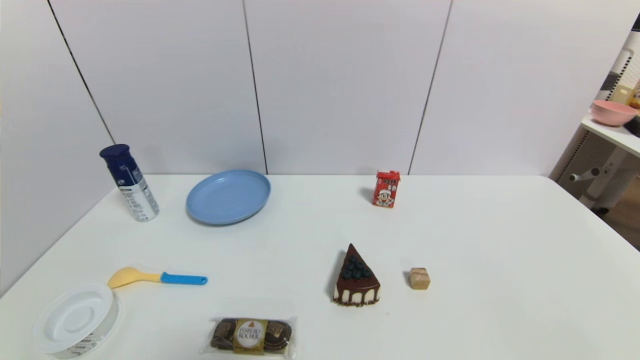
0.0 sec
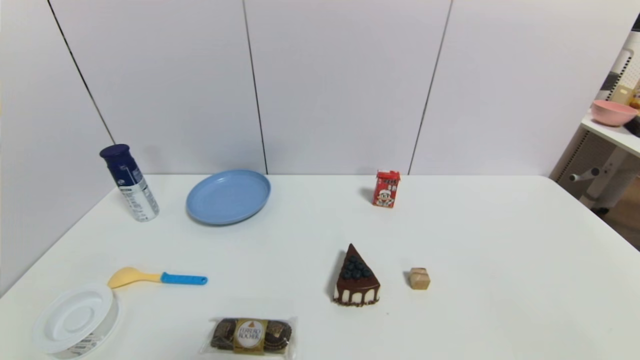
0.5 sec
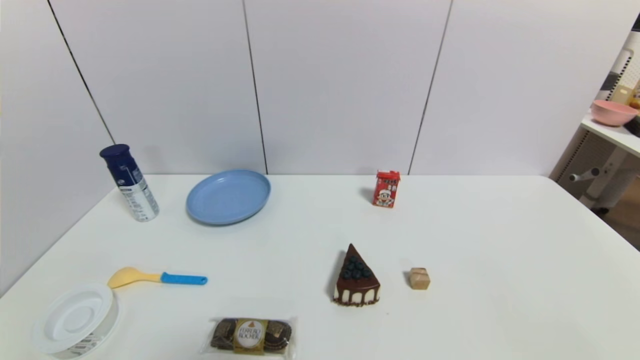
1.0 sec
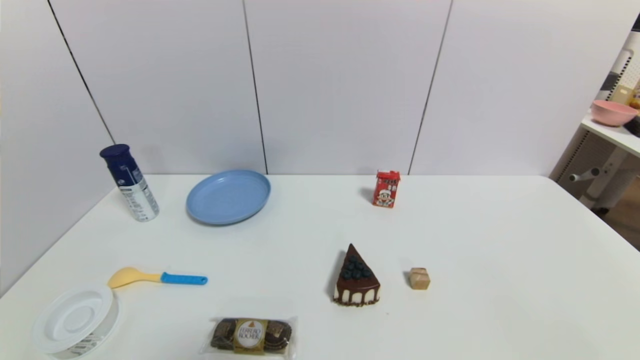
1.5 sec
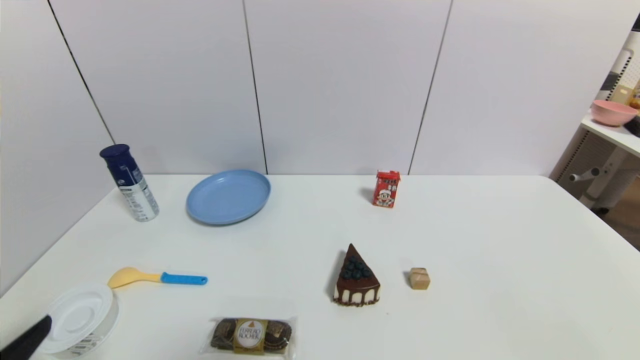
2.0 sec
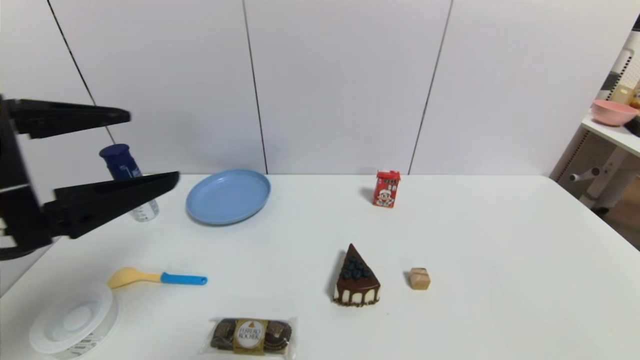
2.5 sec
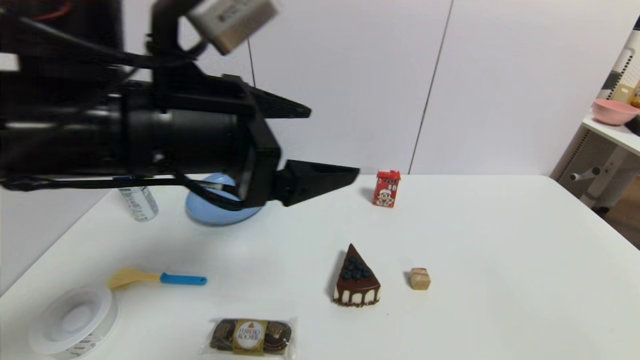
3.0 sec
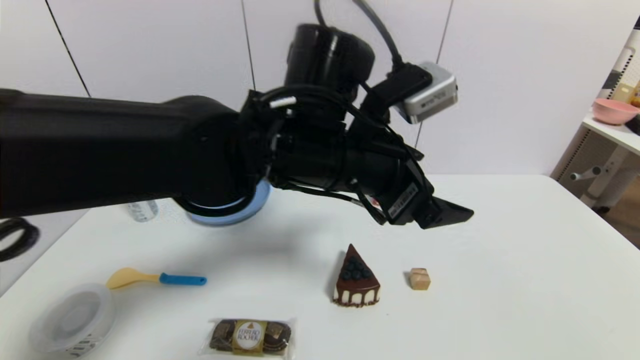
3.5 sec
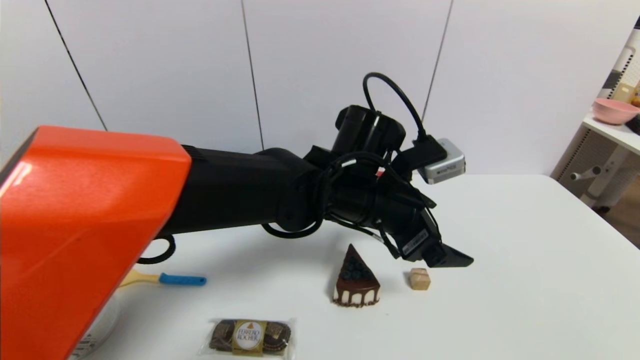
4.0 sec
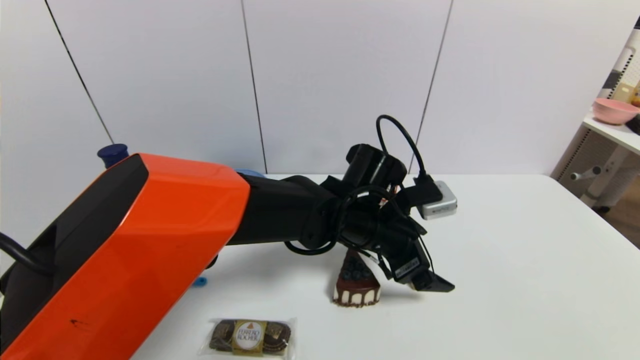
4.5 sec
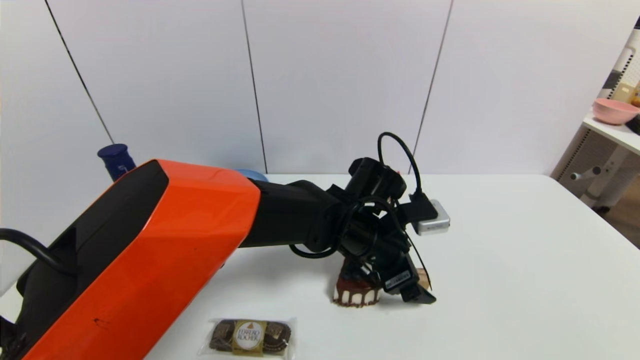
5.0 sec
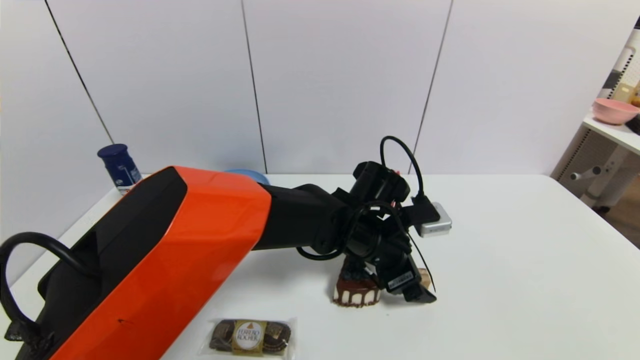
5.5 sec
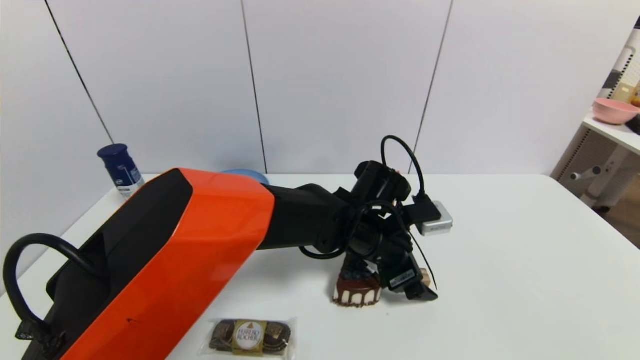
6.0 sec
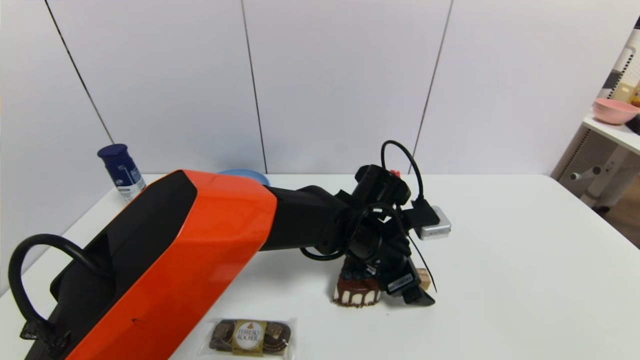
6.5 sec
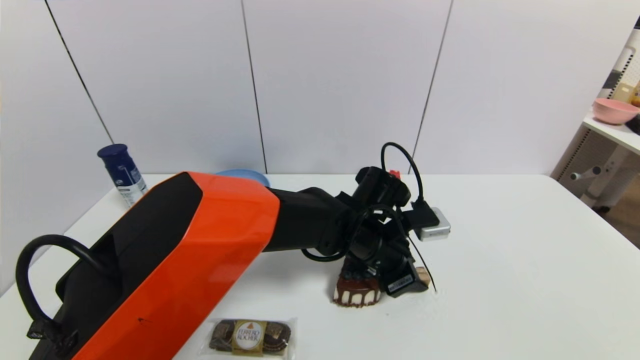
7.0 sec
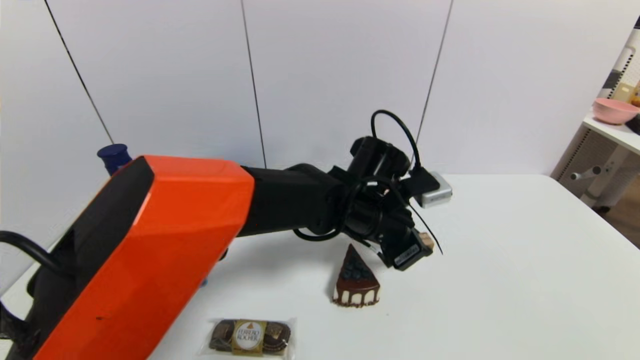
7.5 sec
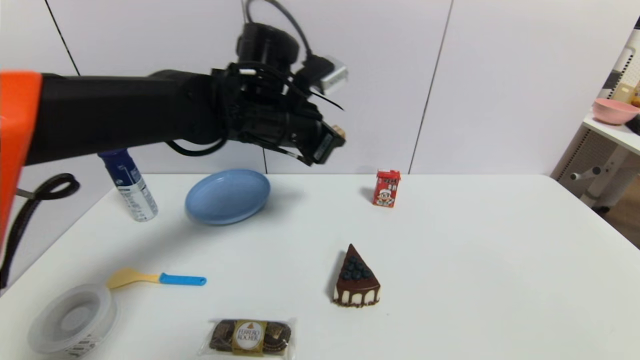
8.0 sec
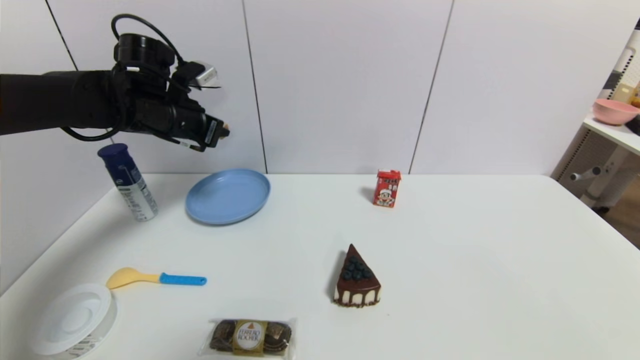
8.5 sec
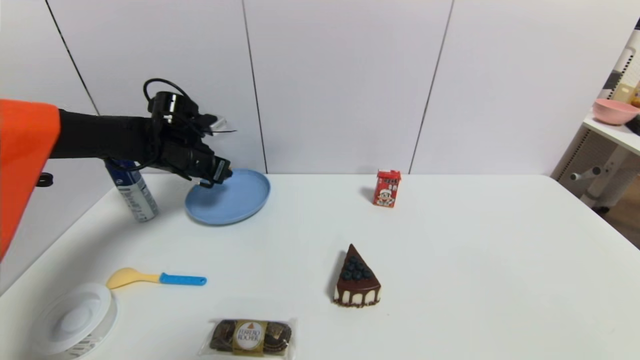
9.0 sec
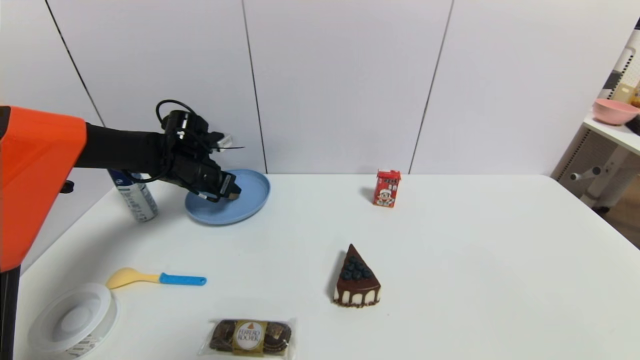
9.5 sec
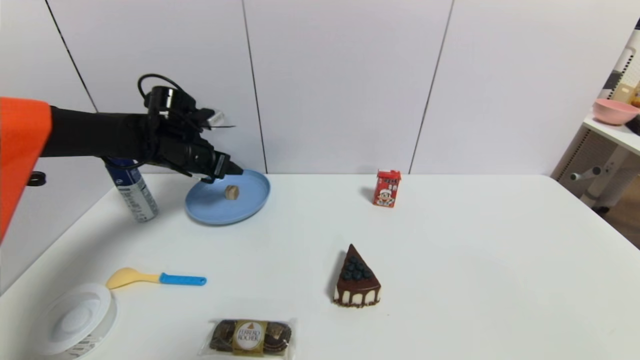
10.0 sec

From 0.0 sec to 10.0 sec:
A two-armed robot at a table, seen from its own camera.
Task of the whole recording: use a gripper to pick the target object and place on the blue plate.
Step, from 0.0 sec to 7.0 sec: Grasp the square wooden block with the left gripper.
Step, from 7.5 sec to 9.5 sec: Place the square wooden block on the blue plate with the left gripper.
From 0.0 sec to 2.0 sec: The left gripper is displaced upward by roughly 10 cm.
From 2.0 sec to 4.0 sec: The left gripper is displaced to the right and forward by approximately 40 cm.
From 4.0 sec to 6.0 sec: The left gripper travels downward by approximately 10 cm.
From 6.0 sec to 8.0 sec: The left gripper goes some 20 cm upward and to the left, and closes.
From 8.0 sec to 10.0 sec: The left gripper moves to the left, downward and forward, about 20 cm, and opens.

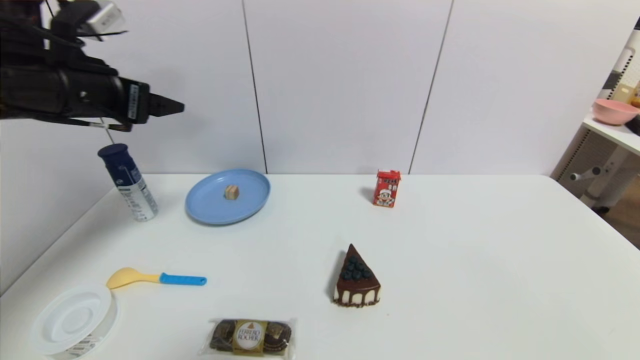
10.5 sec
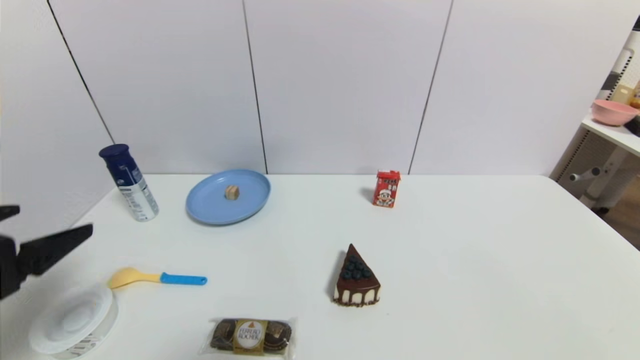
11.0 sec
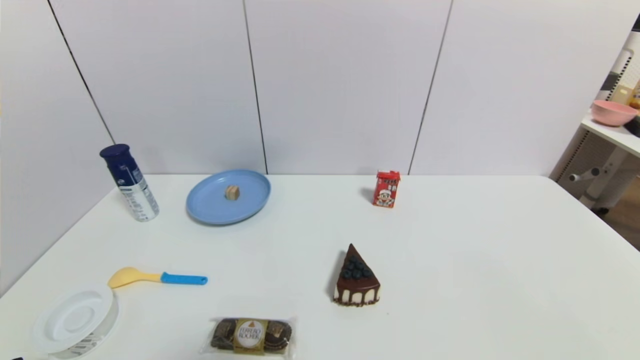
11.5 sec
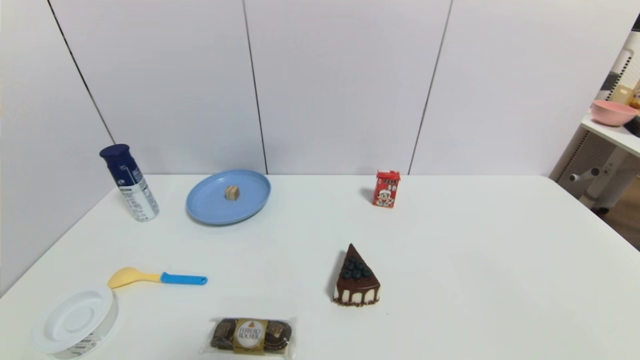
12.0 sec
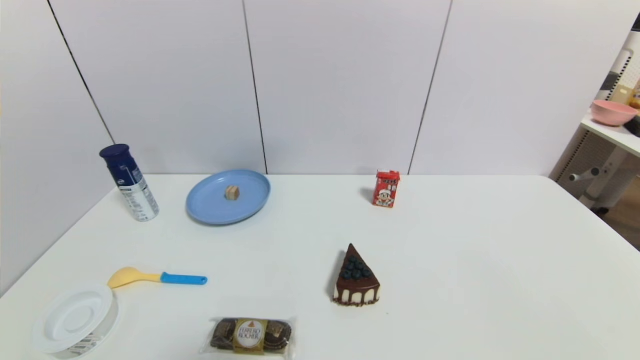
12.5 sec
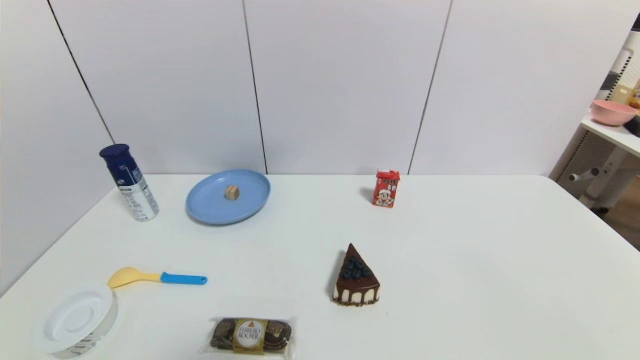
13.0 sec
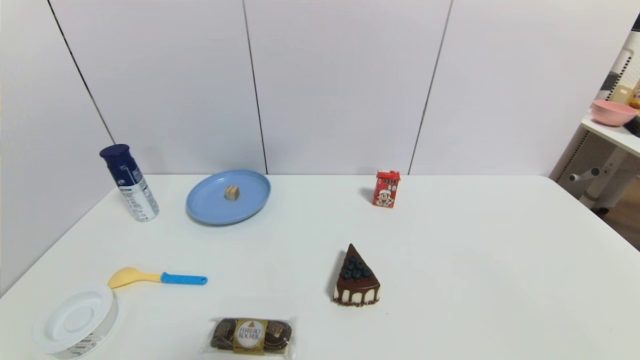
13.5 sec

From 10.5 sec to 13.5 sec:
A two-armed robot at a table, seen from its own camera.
Task of the whole recording: use a gripper to pick the target object and place on the blue plate.
From 10.5 sec to 12.0 sec: The left gripper heads backward and downward, covering about 40 cm.

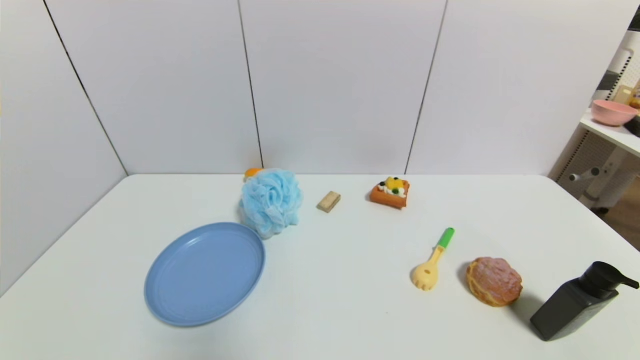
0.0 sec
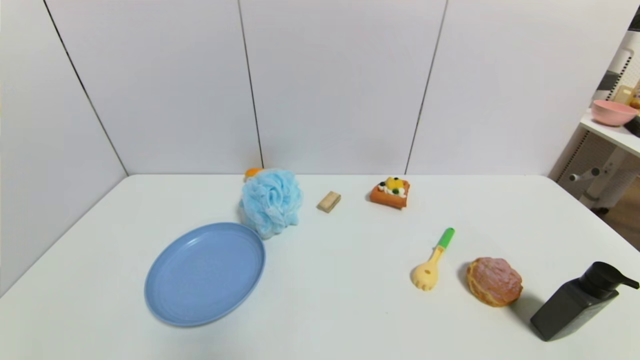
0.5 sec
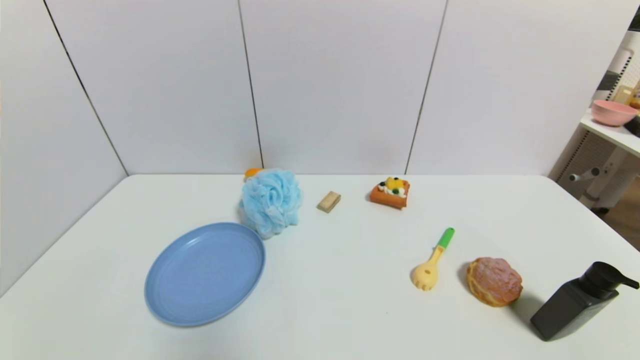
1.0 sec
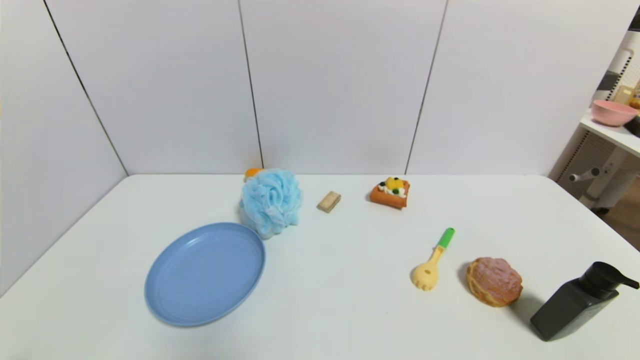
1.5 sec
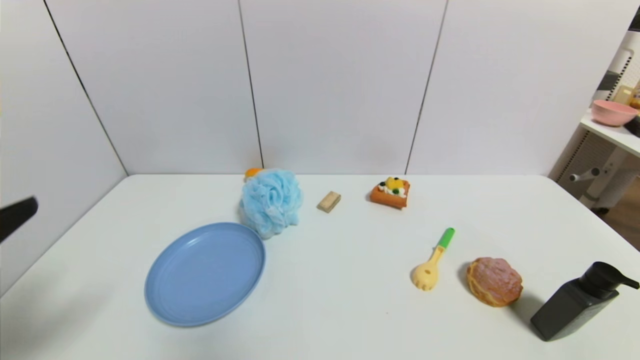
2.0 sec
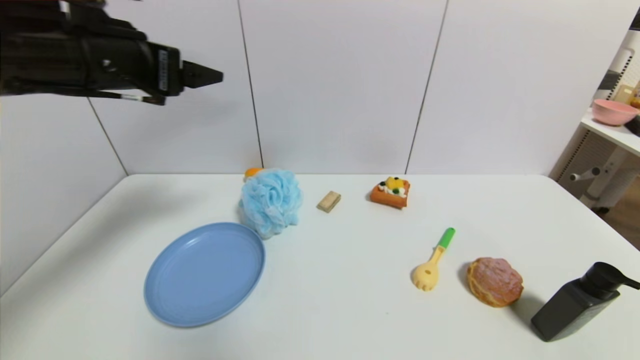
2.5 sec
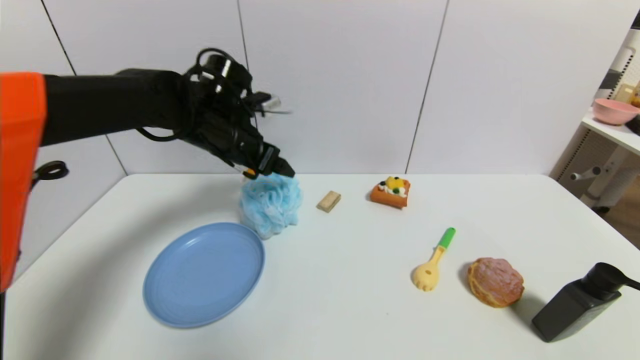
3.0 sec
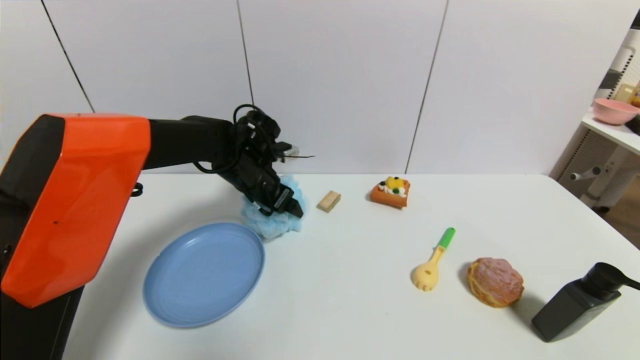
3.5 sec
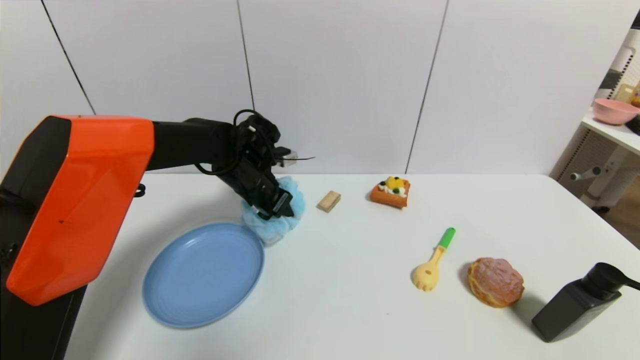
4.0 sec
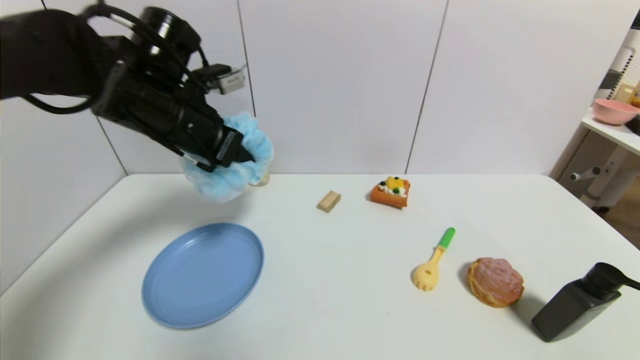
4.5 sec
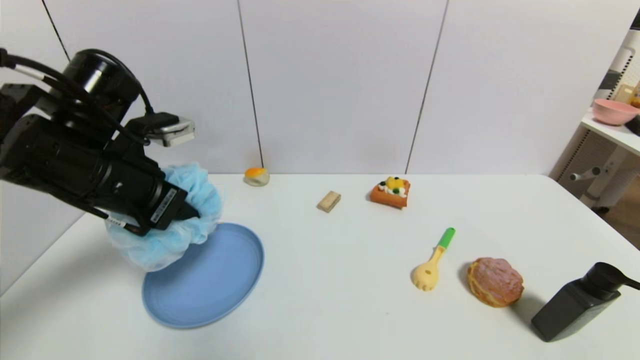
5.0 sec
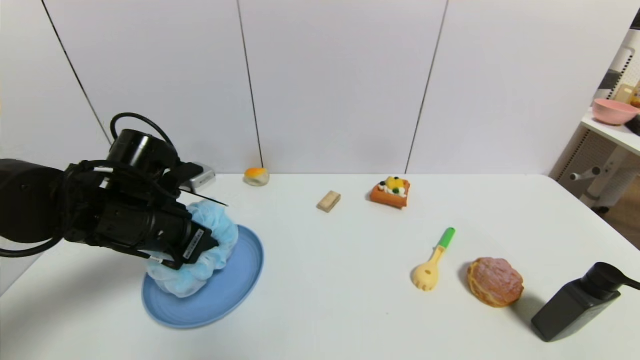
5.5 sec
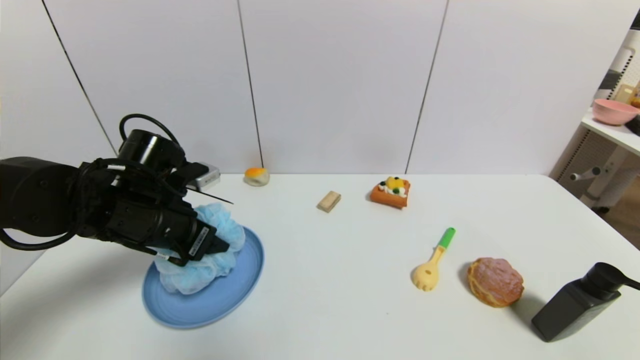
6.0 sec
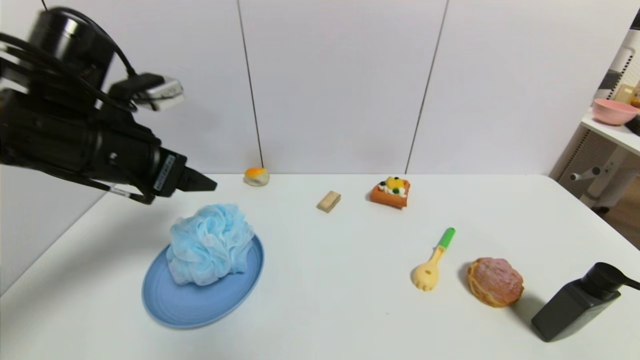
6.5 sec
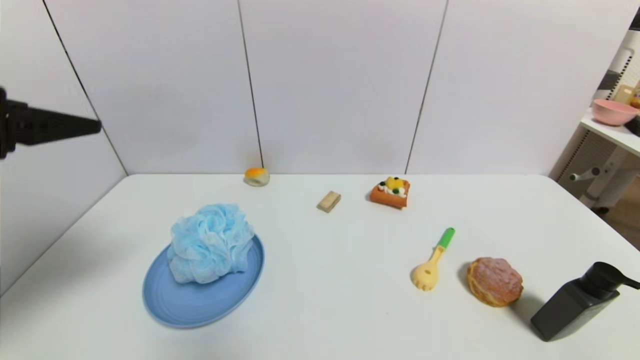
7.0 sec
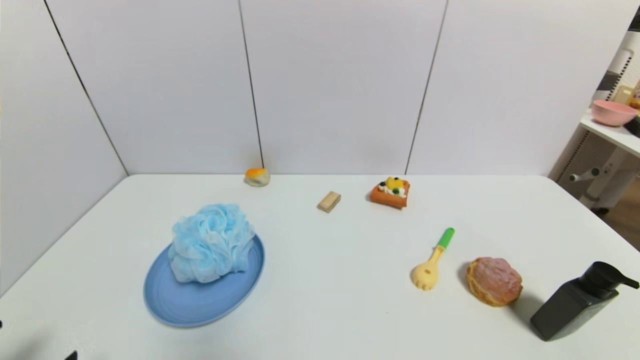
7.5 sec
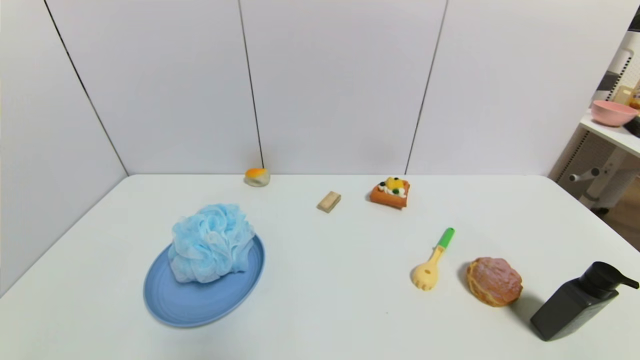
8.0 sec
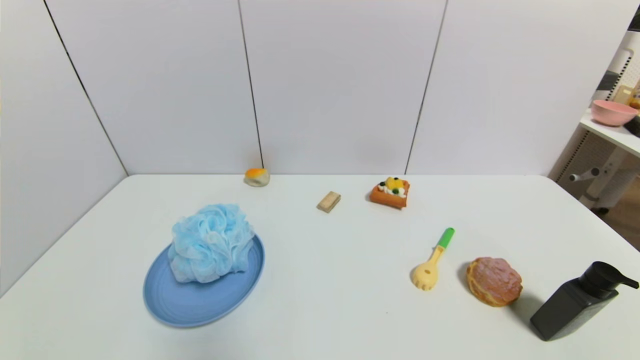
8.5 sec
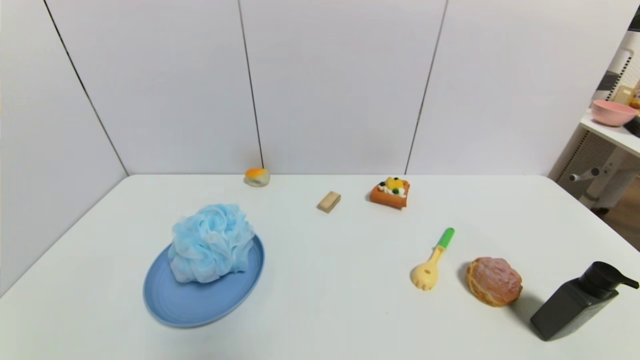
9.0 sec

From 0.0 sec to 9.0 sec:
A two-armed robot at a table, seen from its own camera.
Task of the whole recording: use a gripper to pick the target object and place on the blue plate.
Step, from 0.0 sec to 4.0 sec: Grasp the shower sphere with the left gripper.
Step, from 4.5 sec to 6.5 sec: Place the shower sphere on the blue plate with the left gripper.
From 0.0 sec to 2.0 sec: The left gripper heads upward, covering roughly 20 cm.
From 2.0 sec to 4.5 sec: The left gripper is displaced forward and to the right by approximately 30 cm, and closes its fingers.
From 4.5 sec to 7.0 sec: The left gripper shifts about 20 cm backward and to the left, and opens.
From 7.0 sec to 9.0 sec: The left gripper travels downward and backward by roughly 35 cm.
